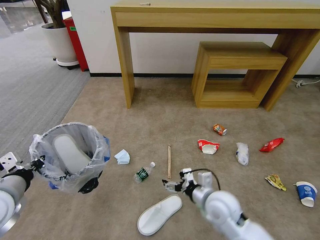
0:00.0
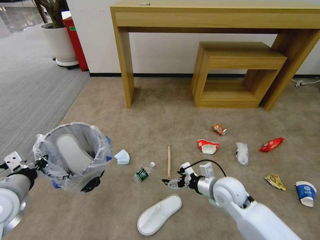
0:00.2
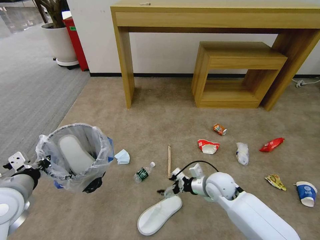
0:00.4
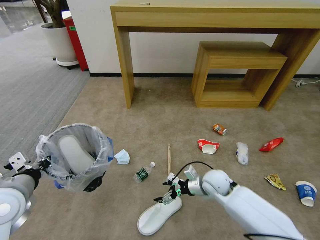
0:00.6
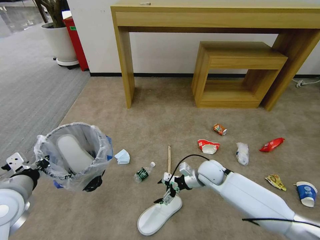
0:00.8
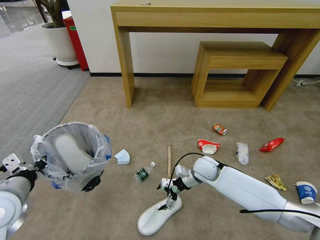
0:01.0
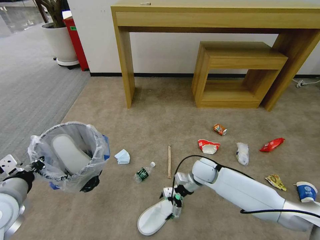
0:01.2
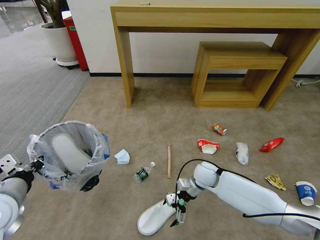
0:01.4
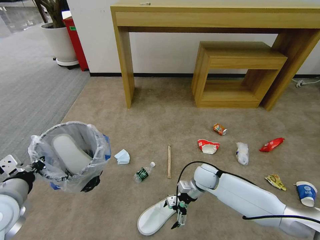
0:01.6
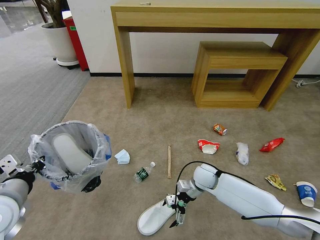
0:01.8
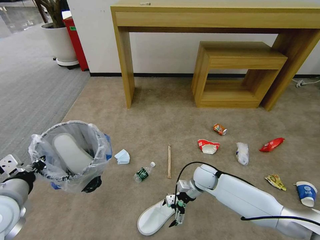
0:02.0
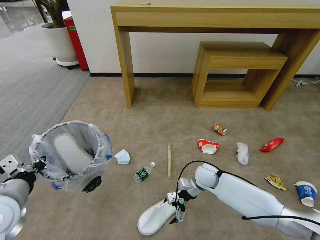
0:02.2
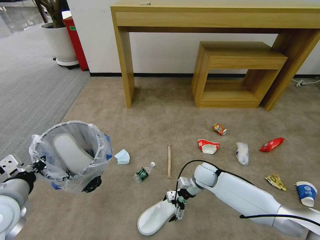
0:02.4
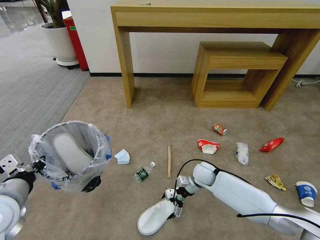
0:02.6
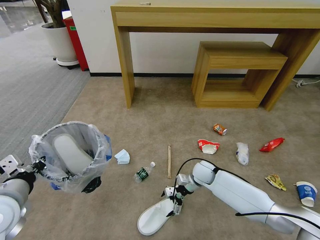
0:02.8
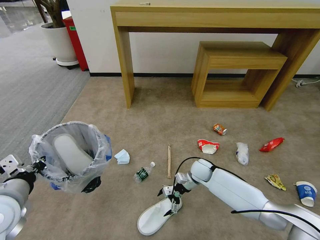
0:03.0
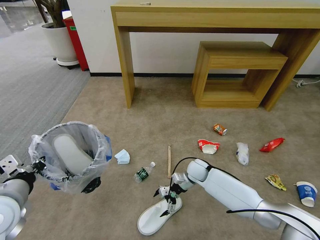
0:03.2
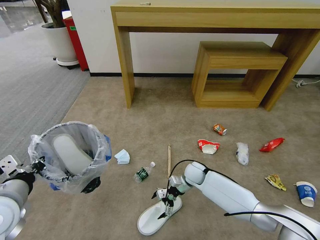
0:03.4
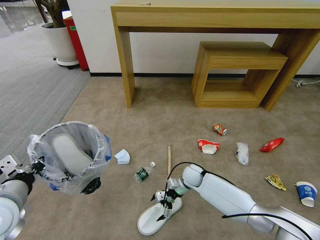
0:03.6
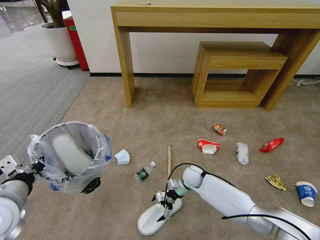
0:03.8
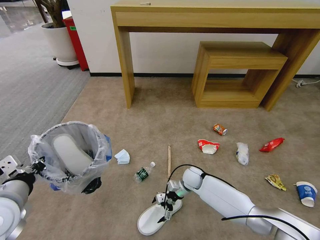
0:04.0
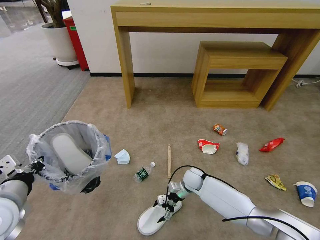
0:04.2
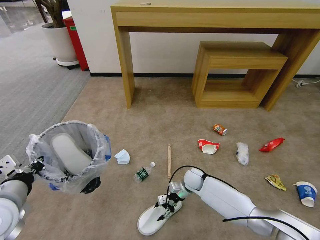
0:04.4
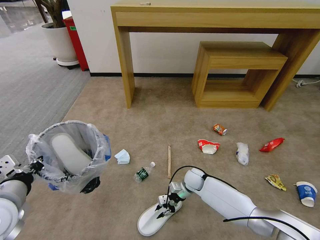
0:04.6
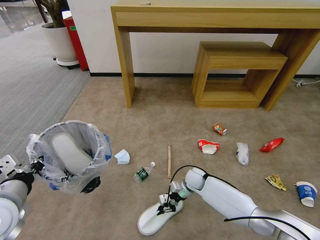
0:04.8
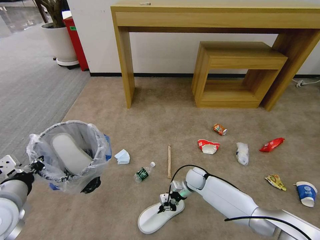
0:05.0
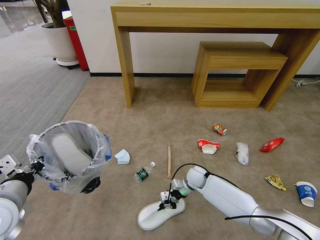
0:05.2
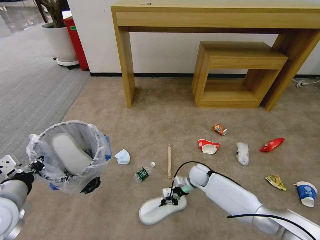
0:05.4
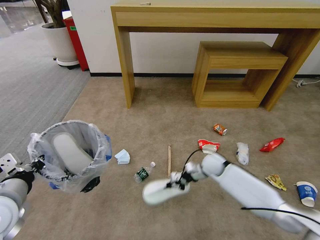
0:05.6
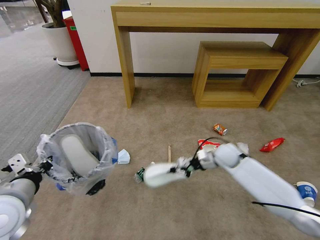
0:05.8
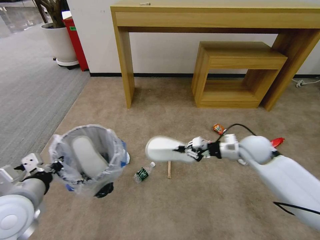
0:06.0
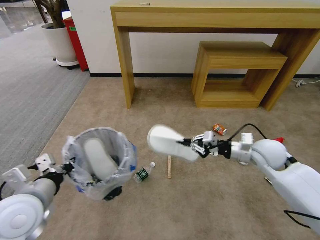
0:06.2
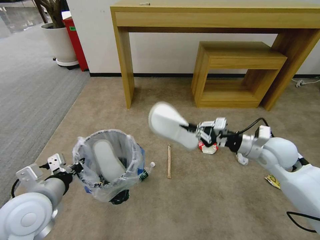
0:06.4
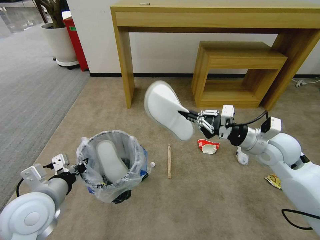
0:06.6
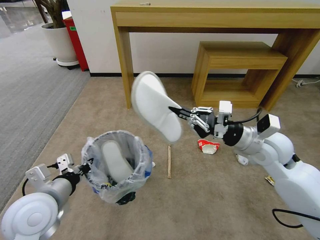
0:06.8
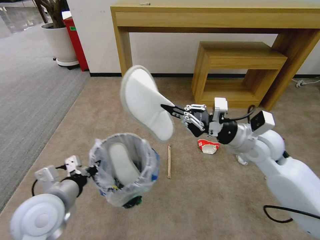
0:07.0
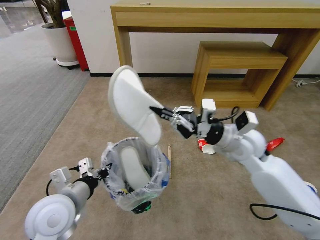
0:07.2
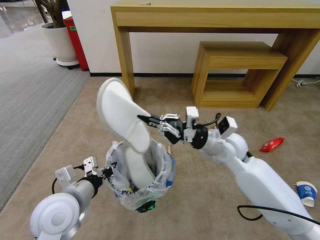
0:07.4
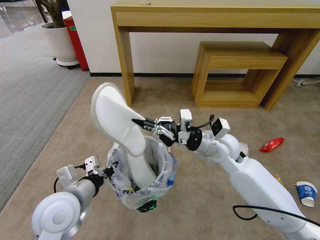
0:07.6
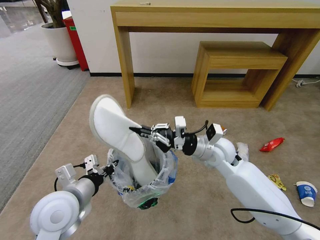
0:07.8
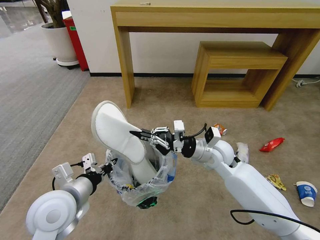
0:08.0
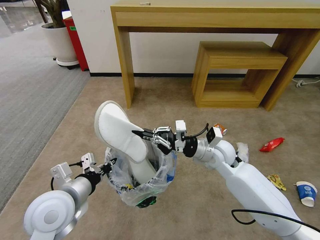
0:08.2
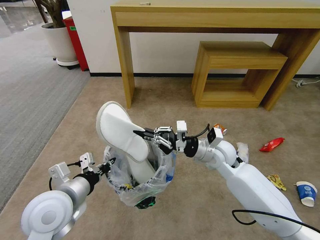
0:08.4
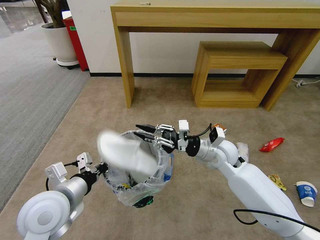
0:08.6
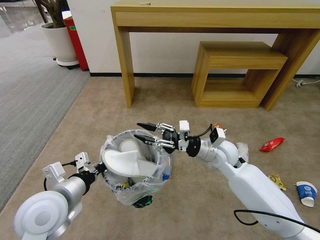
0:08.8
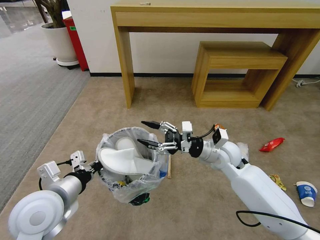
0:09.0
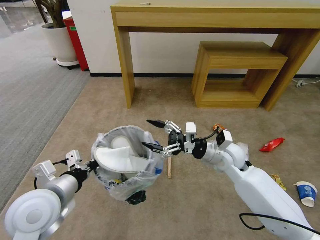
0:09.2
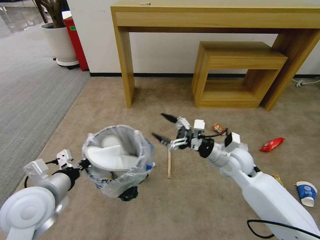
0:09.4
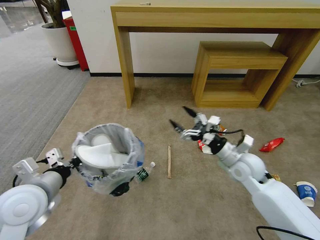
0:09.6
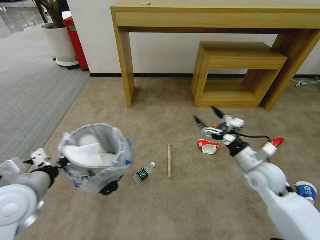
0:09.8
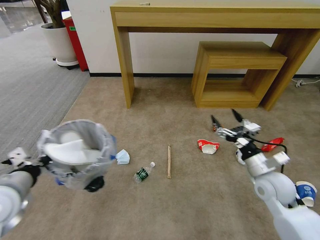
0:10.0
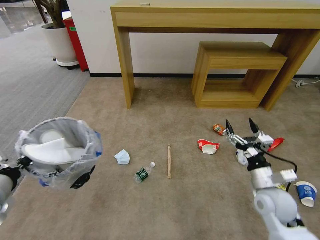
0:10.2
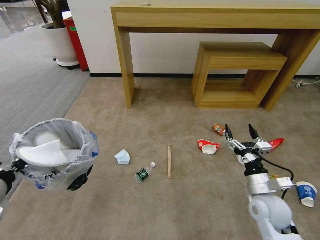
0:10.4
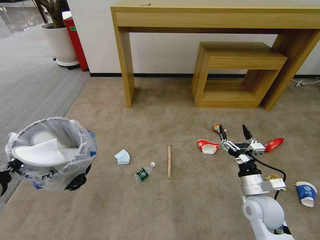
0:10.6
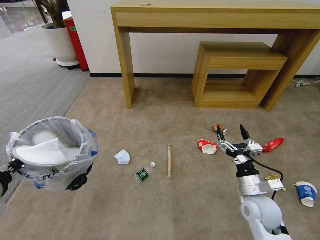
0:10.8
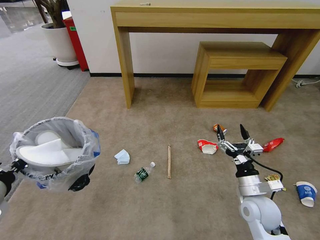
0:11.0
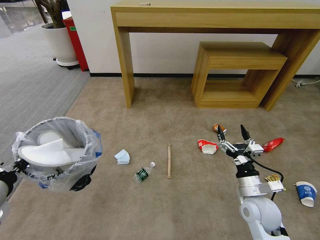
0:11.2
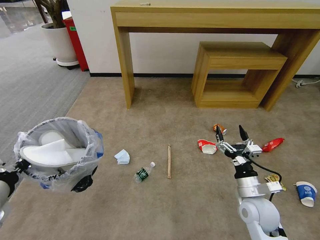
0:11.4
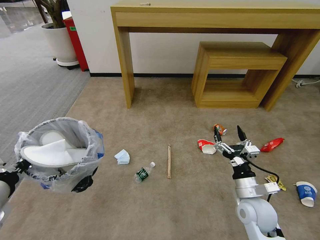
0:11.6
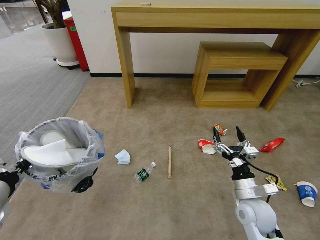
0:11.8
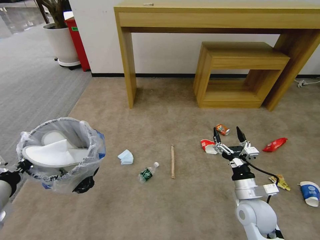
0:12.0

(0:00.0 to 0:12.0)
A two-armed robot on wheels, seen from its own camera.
Task of the whole recording: Pick up the trash bin and place the garbage on the floor into it.
0:00.0 - 0:01.6: The right gripper is displaced forward and downward by some 15 cm.
0:01.6 - 0:03.0: The right gripper changes place by approximately 5 cm.
0:03.0 - 0:04.4: The right gripper moves about 5 cm, and closes.
0:04.4 - 0:06.0: The right gripper is displaced upward and to the right by approximately 30 cm, and closes.
0:06.0 - 0:07.6: The right gripper goes roughly 10 cm to the left, while the left gripper travels to the right by roughly 10 cm.
0:07.6 - 0:09.0: The right gripper opens.
0:09.0 - 0:10.4: The left gripper moves to the left, some 15 cm. Meanwhile the right gripper shifts approximately 20 cm backward, to the right and downward.
0:10.4 - 0:12.0: There are only small adjustments of the grippers.

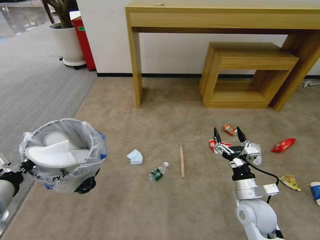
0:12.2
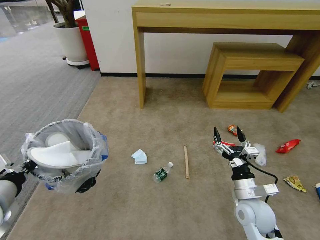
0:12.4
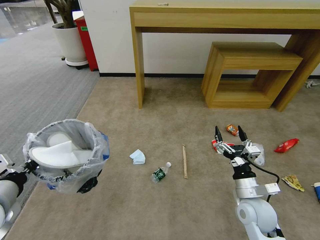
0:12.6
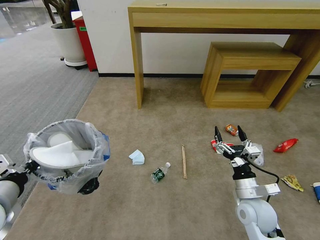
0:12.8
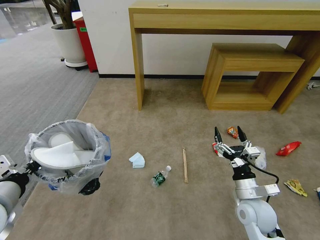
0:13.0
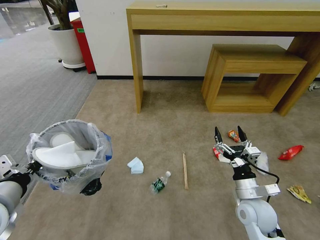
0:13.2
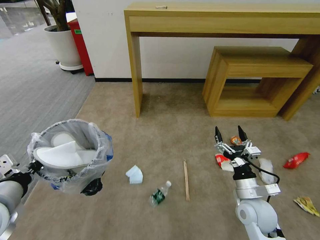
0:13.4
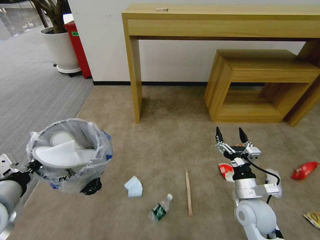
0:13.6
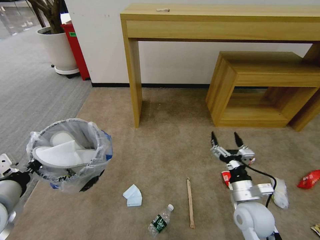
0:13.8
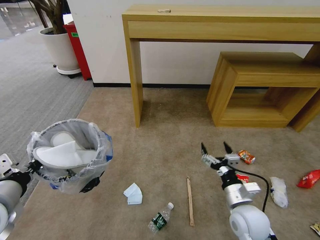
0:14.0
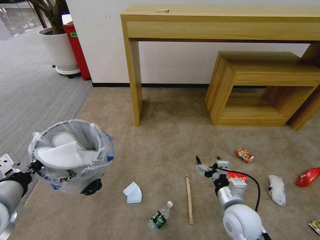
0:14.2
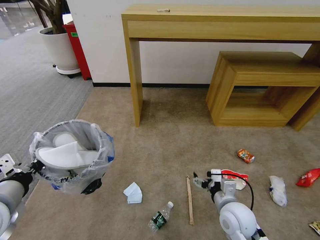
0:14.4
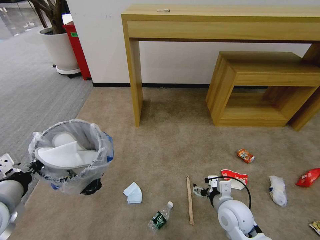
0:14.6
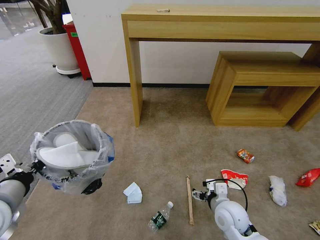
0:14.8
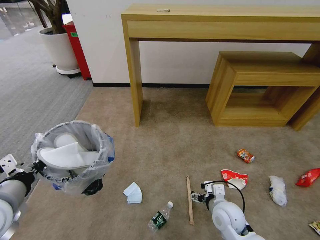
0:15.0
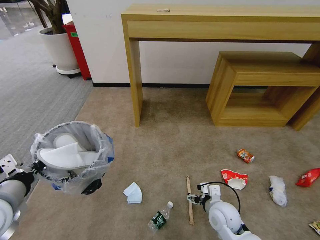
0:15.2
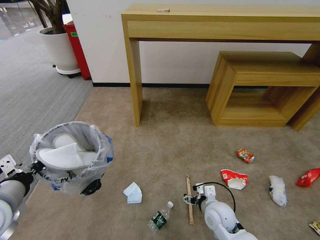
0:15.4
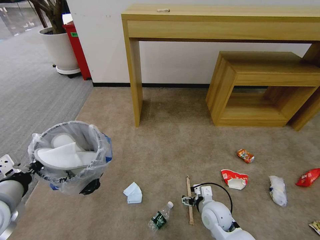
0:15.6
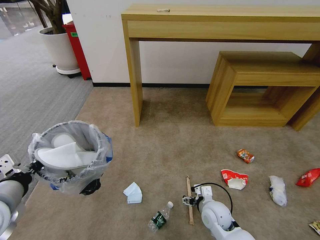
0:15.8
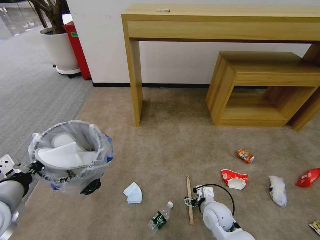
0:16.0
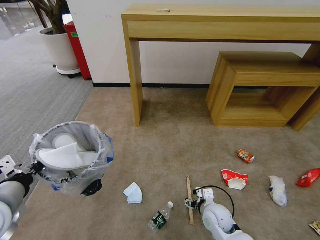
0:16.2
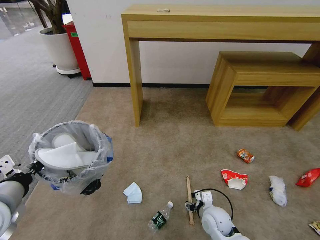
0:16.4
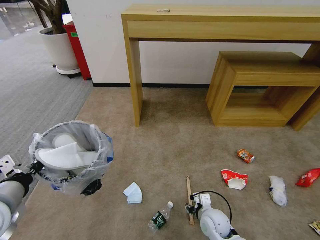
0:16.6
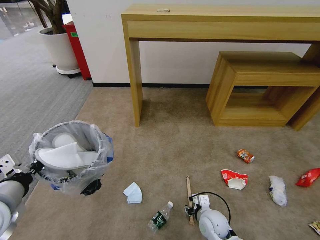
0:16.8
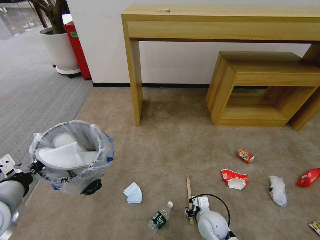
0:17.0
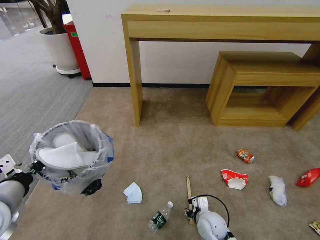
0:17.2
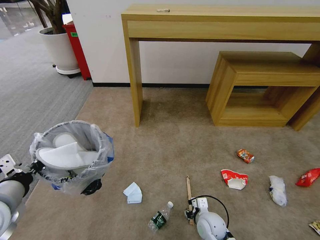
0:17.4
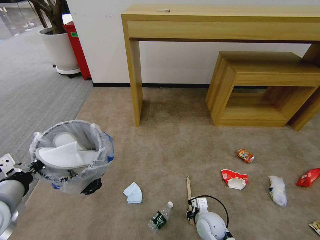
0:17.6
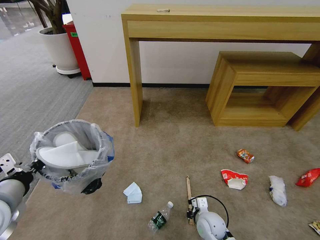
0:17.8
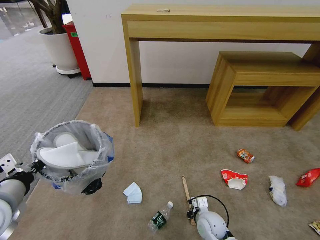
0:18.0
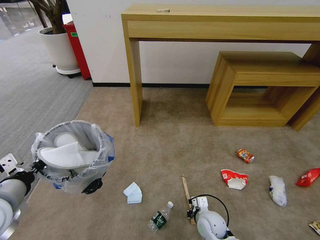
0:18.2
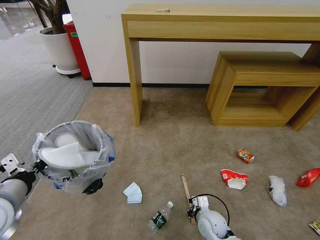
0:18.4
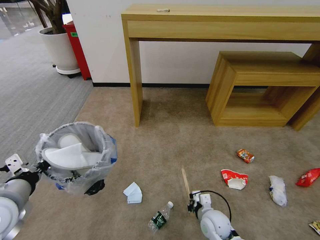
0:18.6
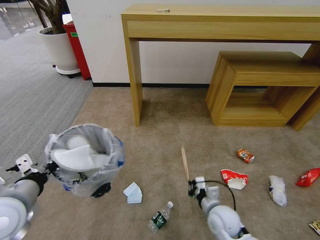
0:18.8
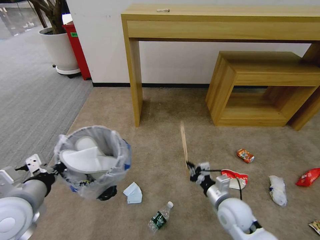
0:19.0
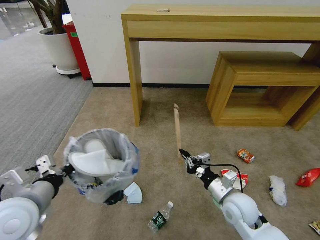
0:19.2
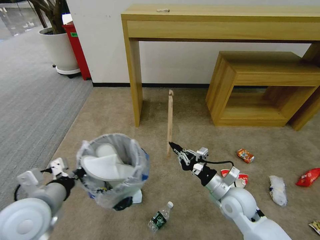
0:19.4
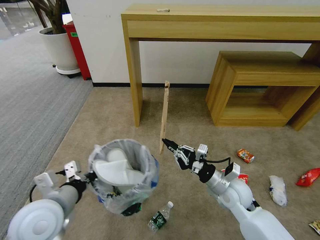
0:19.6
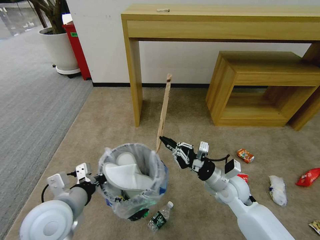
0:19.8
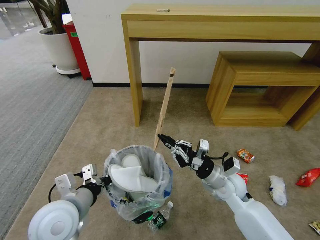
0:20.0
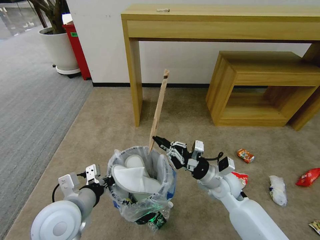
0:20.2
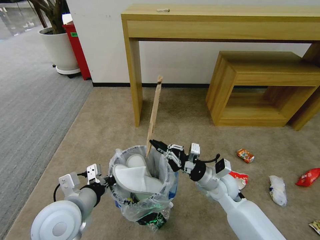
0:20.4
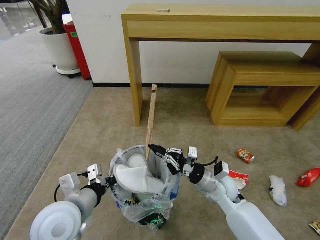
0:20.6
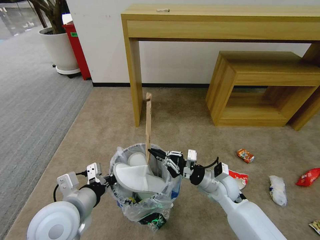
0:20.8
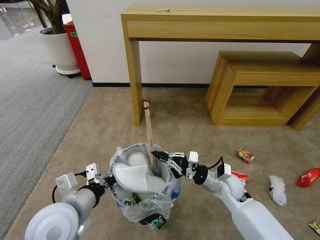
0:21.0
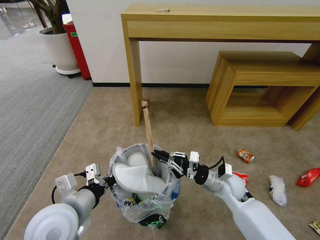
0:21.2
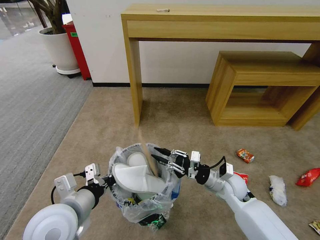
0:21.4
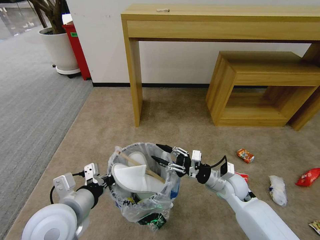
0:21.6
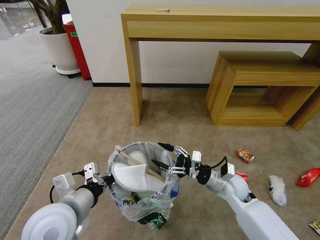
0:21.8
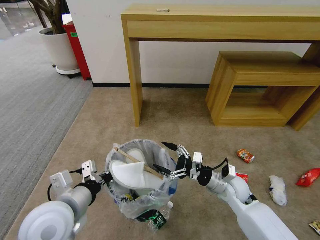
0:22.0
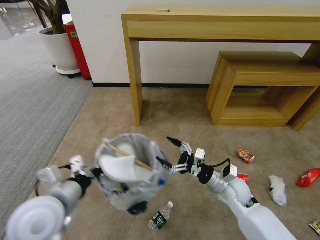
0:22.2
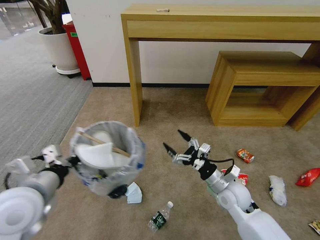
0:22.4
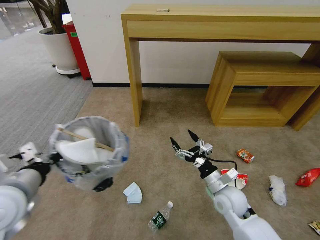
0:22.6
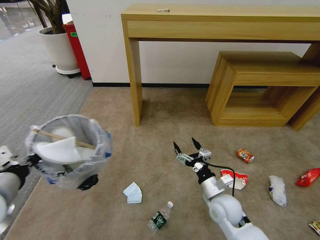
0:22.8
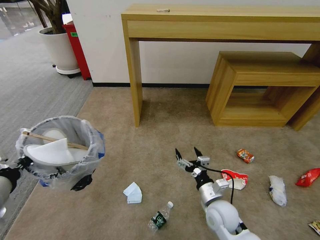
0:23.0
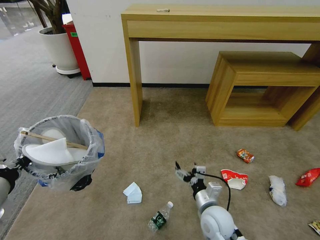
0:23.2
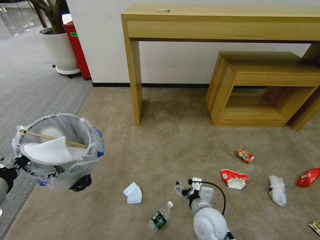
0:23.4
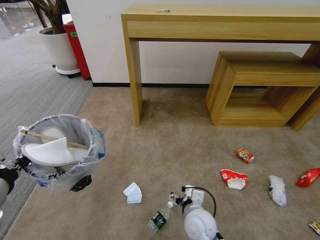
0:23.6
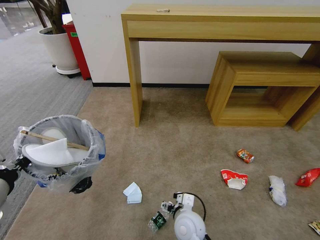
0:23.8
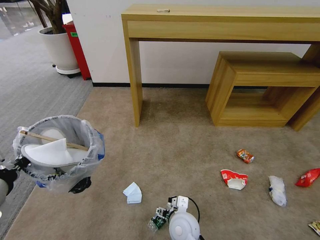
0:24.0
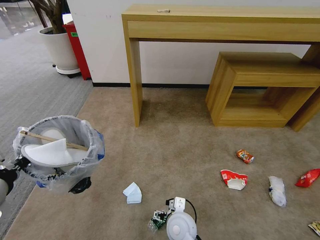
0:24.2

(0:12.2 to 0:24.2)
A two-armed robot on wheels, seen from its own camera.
Task of the whole recording: Pick up the trash bin and place the garbage on the floor into it.
0:13.8 - 0:15.2: The right gripper goes about 10 cm downward and to the left.
0:15.2 - 0:16.6: The right gripper shifts about 5 cm downward, and closes up.
0:16.6 - 0:18.2: The right gripper closes its fingers.
0:18.2 - 0:19.8: The right gripper moves upward and forward, some 15 cm; the left gripper moves to the right, approximately 10 cm.
0:19.8 - 0:21.2: The grippers make only small movements.
0:21.2 - 0:22.6: The right gripper opens. The left gripper heads to the left and upward, covering roughly 10 cm.
0:22.6 - 0:24.2: The right gripper travels to the left and backward by roughly 20 cm. Meanwhile the left gripper shifts by some 5 cm.
